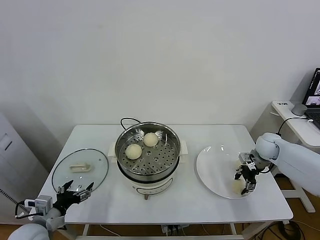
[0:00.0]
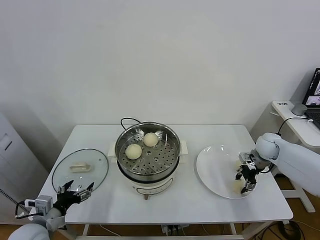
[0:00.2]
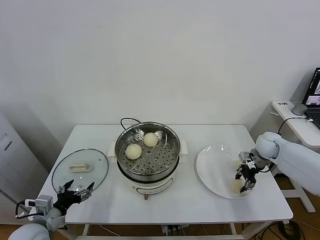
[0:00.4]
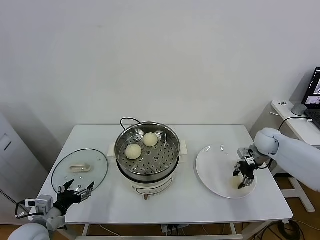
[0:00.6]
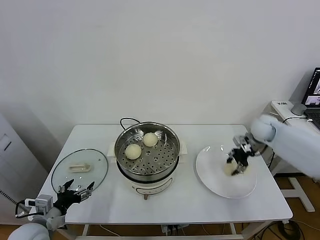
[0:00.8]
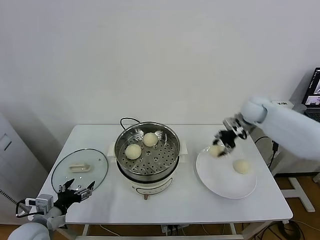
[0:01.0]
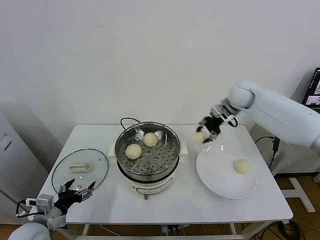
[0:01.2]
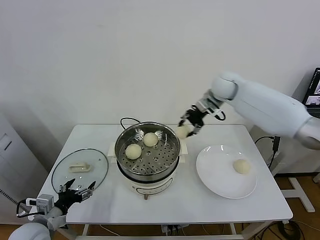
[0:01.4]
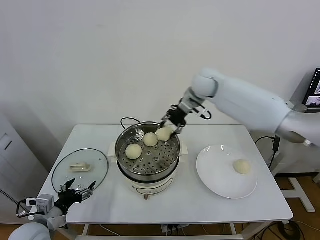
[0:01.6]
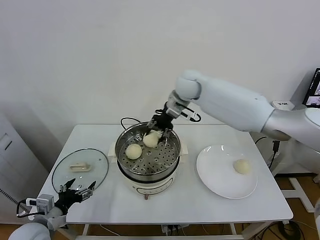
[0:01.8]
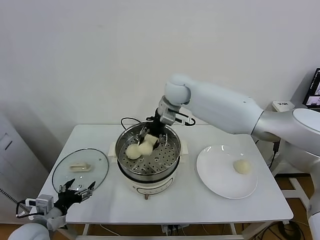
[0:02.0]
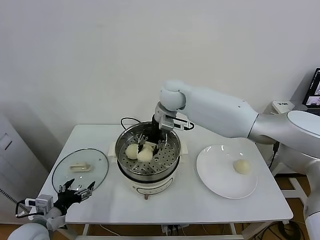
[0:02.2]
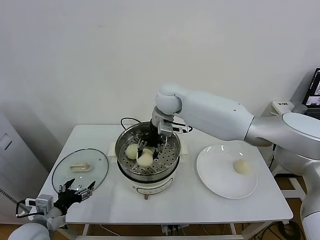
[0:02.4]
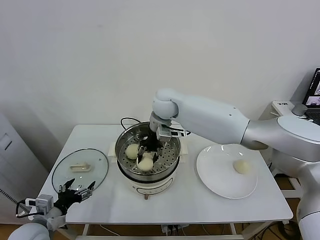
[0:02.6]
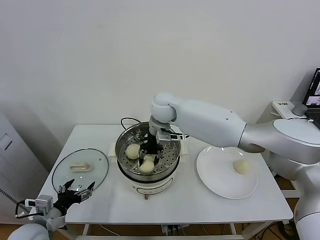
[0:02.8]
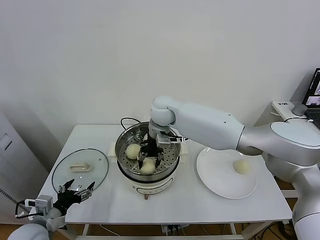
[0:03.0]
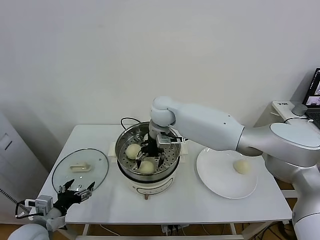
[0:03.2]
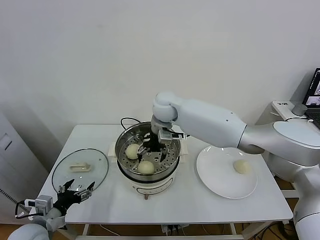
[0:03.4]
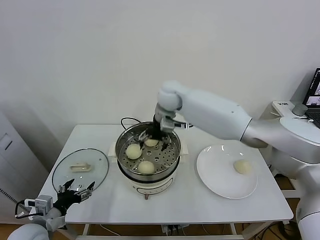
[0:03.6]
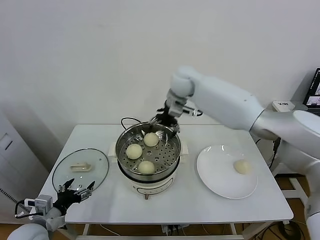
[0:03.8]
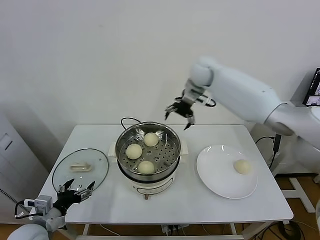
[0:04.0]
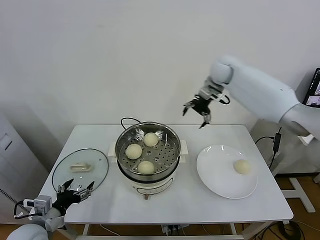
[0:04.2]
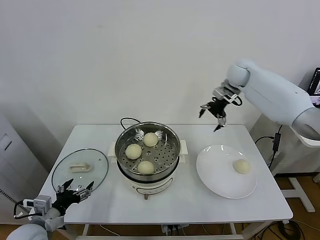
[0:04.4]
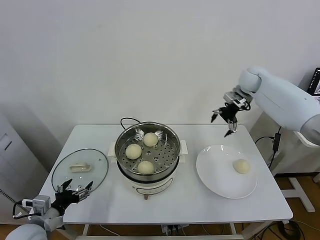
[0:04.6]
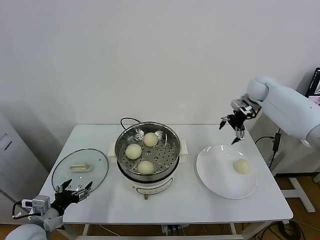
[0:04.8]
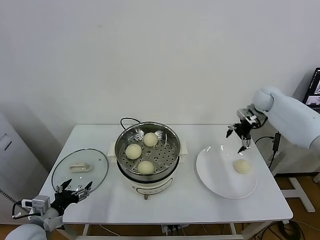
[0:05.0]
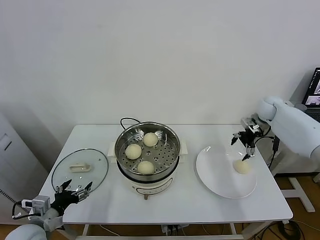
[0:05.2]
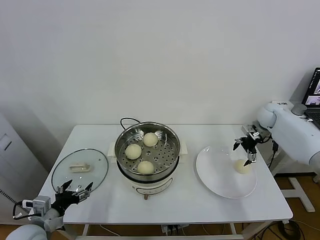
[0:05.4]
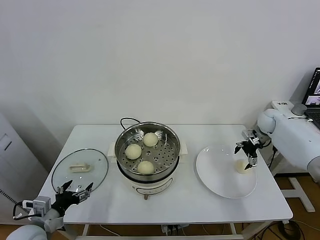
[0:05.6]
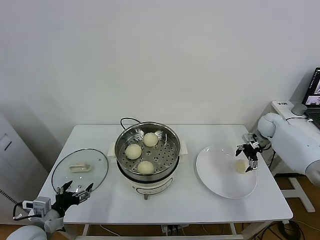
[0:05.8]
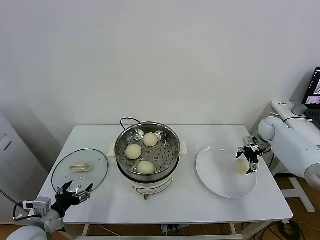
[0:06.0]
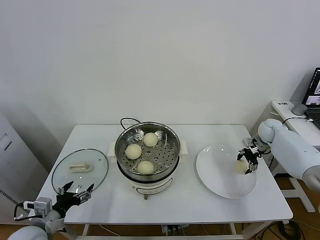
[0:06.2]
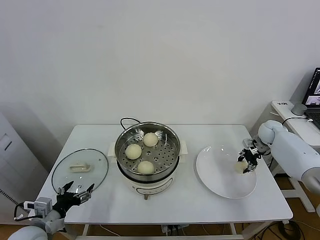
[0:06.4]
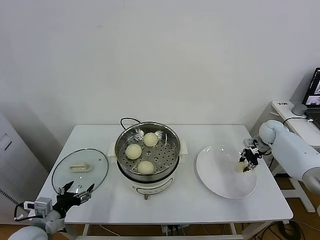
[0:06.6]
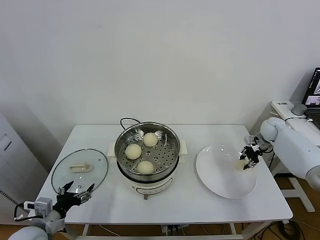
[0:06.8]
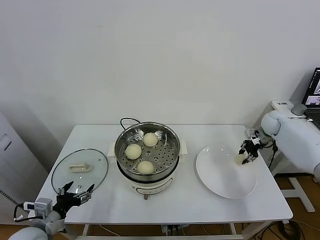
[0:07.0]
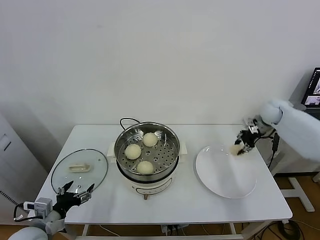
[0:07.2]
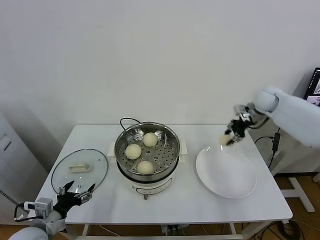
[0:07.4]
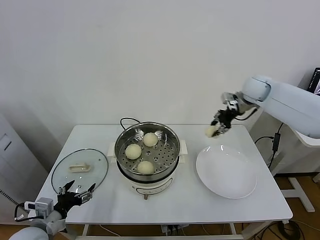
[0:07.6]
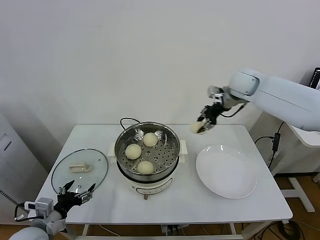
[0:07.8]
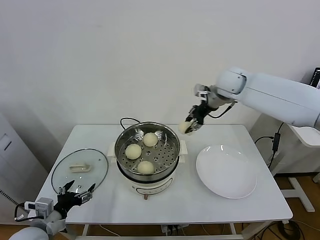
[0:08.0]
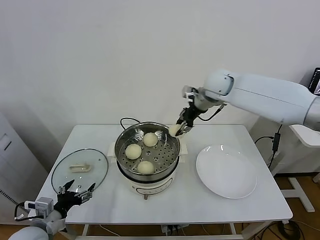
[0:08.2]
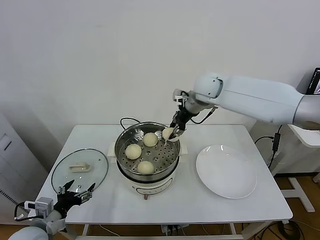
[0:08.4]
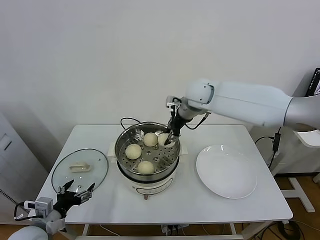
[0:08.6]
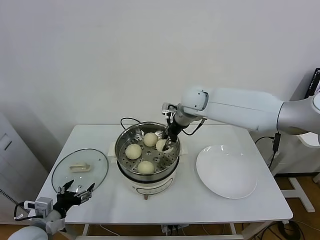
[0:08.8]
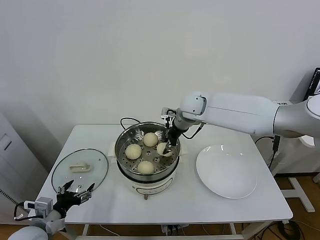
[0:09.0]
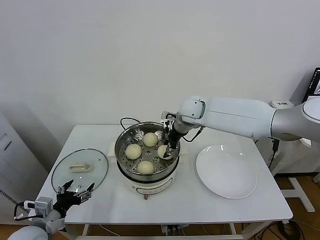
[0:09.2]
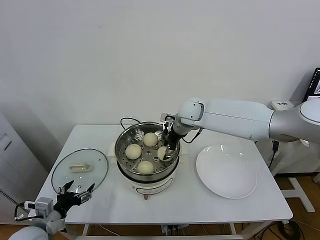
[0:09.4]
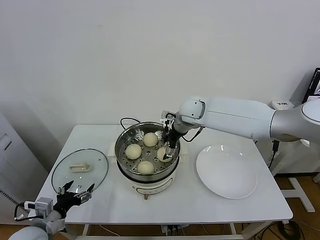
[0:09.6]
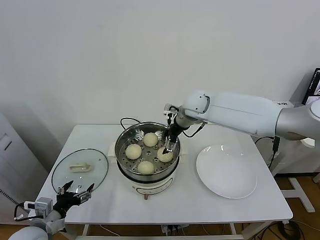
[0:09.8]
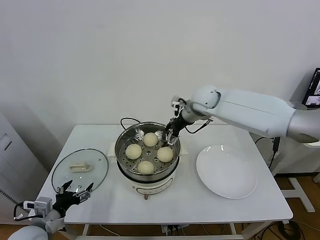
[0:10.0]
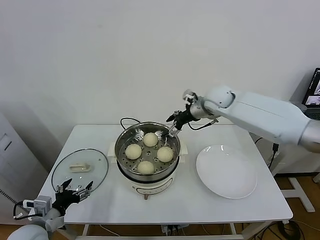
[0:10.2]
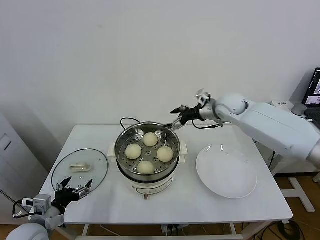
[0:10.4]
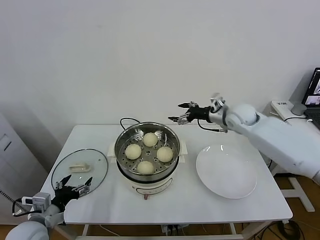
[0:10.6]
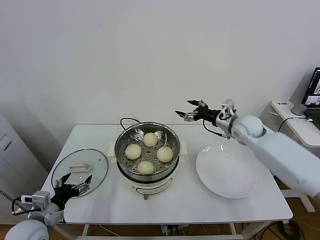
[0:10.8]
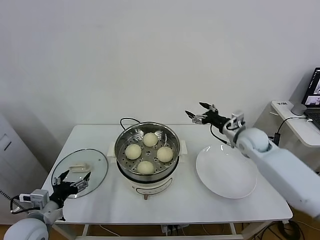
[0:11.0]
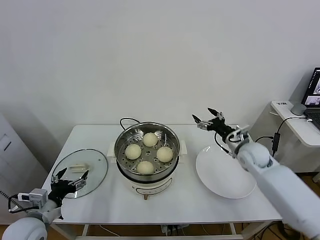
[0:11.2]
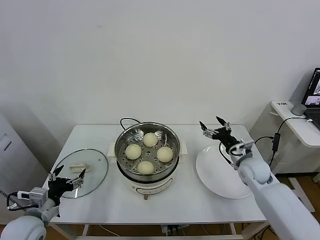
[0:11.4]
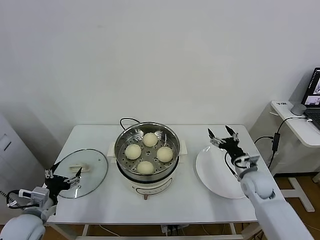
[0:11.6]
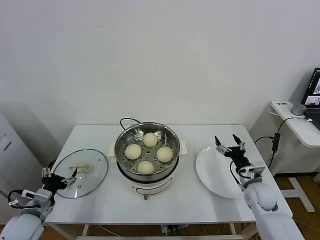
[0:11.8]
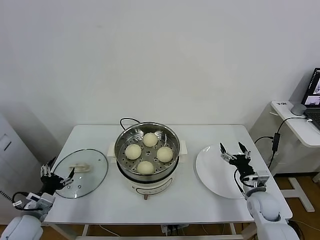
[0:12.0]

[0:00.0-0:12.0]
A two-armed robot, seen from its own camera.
Task of the whole recording: take steamed baozi put them in steamer.
Step, 0:00.4 to 0:03.6: Place the baozi on the steamer with right gripper.
Step, 0:03.8 to 0:06.4: Grasp the baozi in the plate with right gripper.
Step, 0:06.6 to 0:09.8: Place the baozi on the steamer with right gripper.
0:00.0 to 0:01.6: The right gripper is displaced to the left and upward by about 35 cm.
0:01.6 to 0:03.0: The right gripper travels to the left, downward and backward by about 15 cm.
0:03.0 to 0:04.4: The right gripper heads to the right, covering some 30 cm, and opens.
0:04.4 to 0:06.0: The right gripper travels downward and to the right by some 25 cm.
0:06.0 to 0:07.6: The right gripper travels upward and to the left by approximately 25 cm, and closes its fingers.
0:07.6 to 0:09.0: The right gripper travels to the left by approximately 20 cm.
0:09.0 to 0:10.4: The right gripper travels to the right by about 15 cm, and opens.
0:10.4 to 0:12.0: The right gripper heads downward, backward and to the right, covering about 35 cm. Meanwhile the left gripper goes roughly 5 cm to the left.

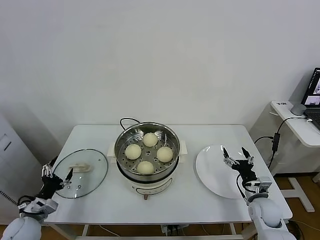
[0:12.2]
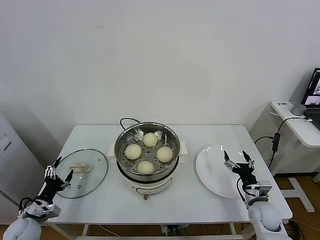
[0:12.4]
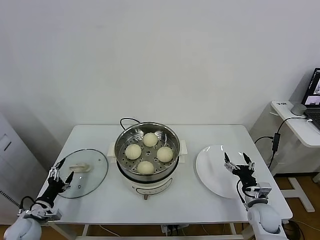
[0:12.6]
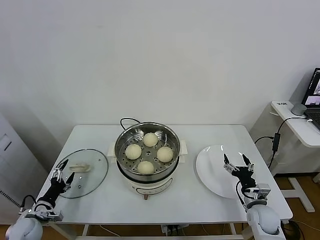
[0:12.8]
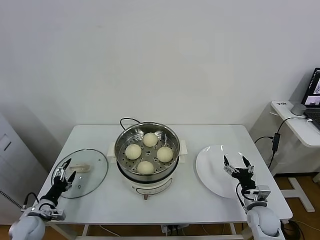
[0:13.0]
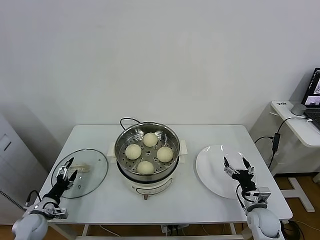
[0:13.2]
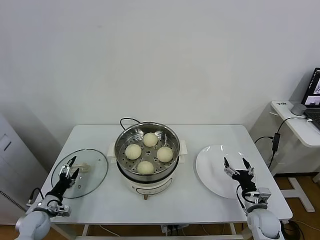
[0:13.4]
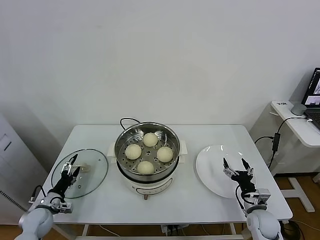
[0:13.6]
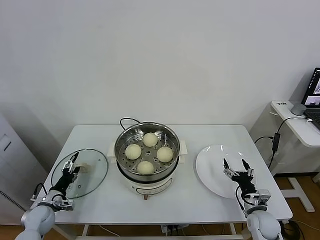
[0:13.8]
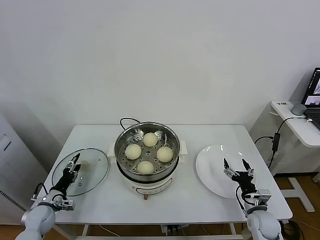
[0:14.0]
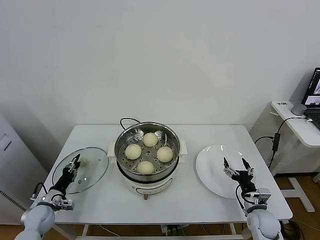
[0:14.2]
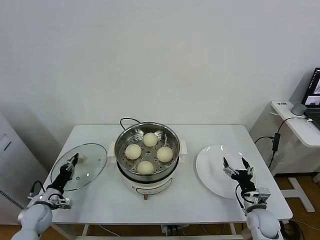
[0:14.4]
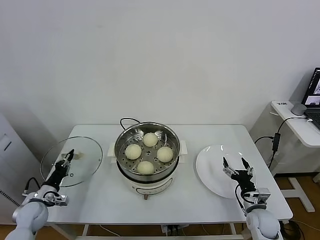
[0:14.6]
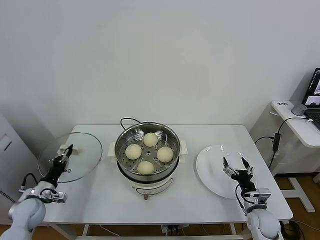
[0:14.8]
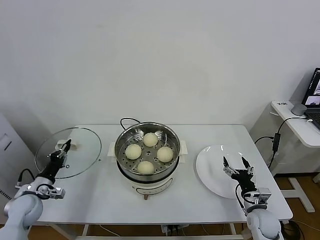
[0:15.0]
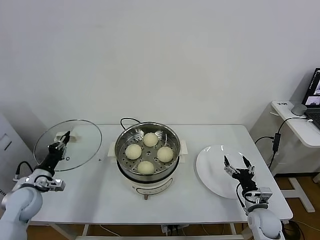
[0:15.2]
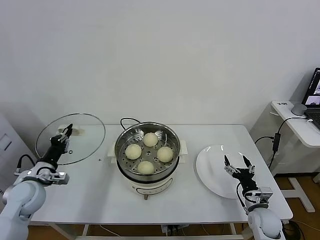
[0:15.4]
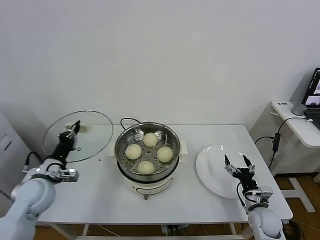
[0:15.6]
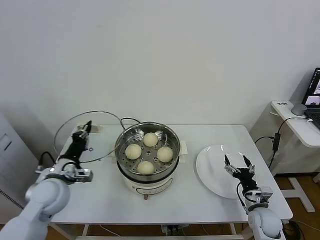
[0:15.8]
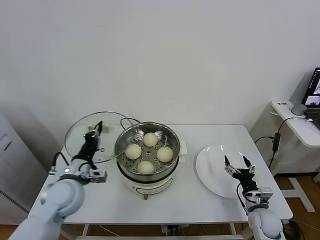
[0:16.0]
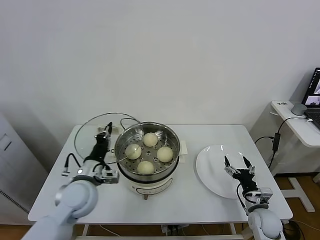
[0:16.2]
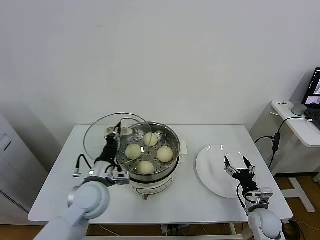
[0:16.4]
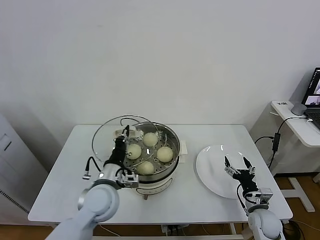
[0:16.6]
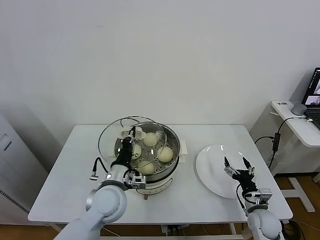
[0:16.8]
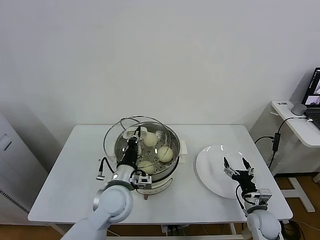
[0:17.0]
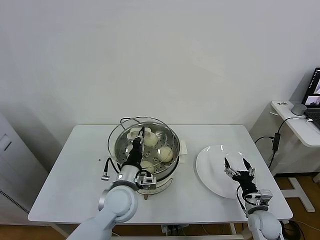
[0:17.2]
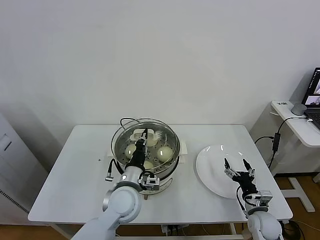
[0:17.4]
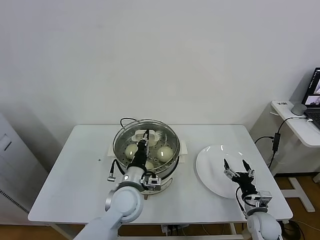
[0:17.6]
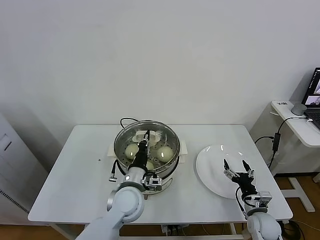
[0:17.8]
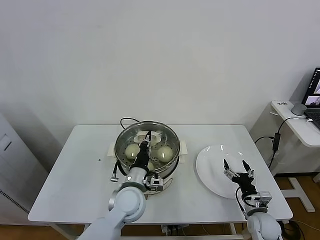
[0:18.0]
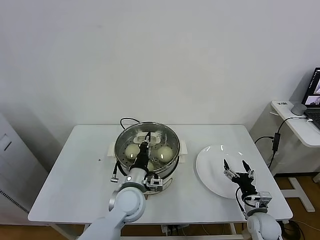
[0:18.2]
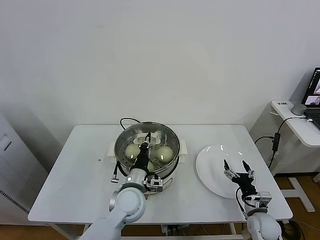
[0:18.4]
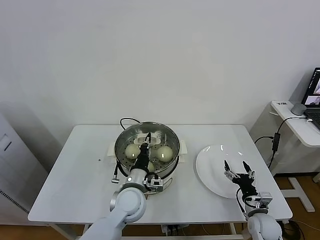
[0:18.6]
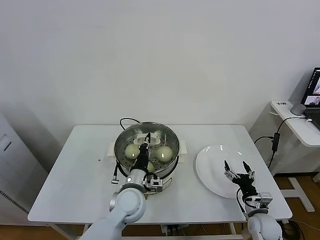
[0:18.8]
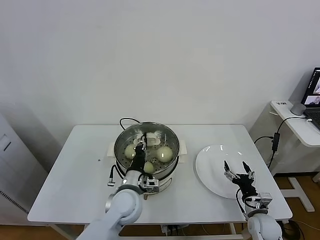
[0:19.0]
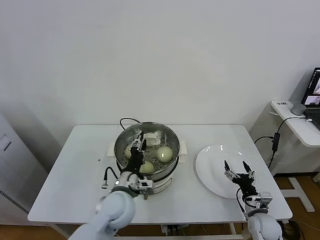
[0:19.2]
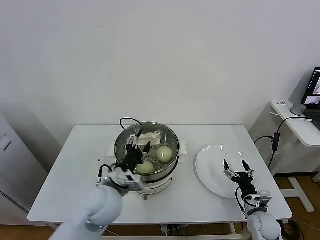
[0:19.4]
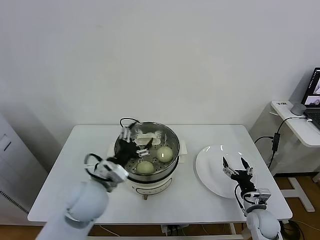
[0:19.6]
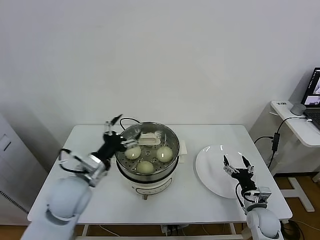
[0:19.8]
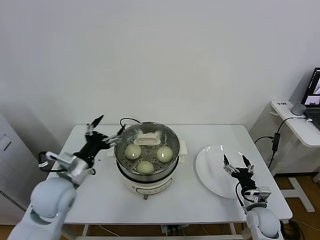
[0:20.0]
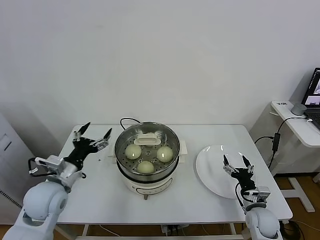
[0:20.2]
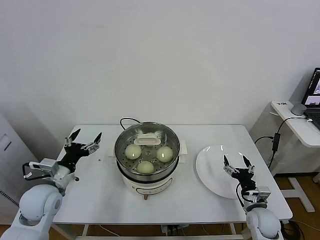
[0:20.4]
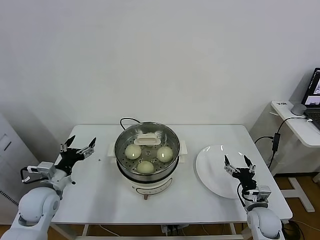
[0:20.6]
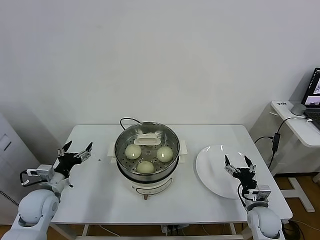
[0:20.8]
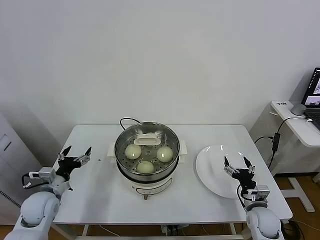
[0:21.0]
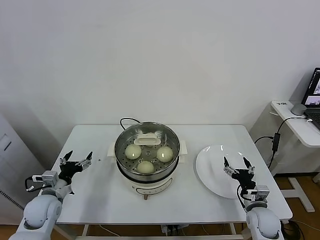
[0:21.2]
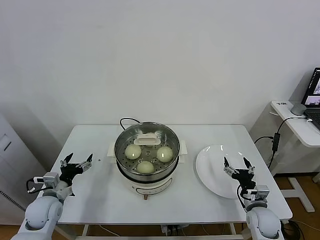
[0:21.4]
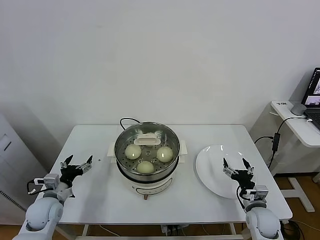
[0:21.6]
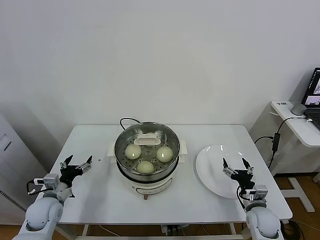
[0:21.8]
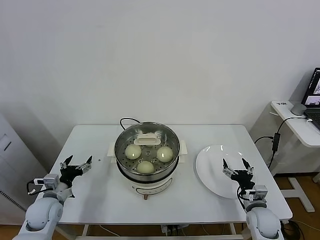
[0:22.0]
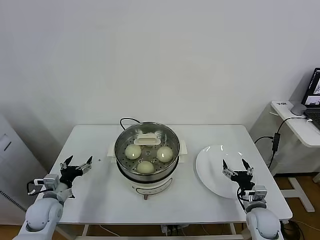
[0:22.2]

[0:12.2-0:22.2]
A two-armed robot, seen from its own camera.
Task of the whole recording: take steamed baozi put them in steamer.
Step, 0:12.2 to 0:14.6: Grasp the pot lid with left gripper.
Step, 0:14.8 to 0:19.4: Place the pot lid on the steamer with left gripper.
0:12.2 to 0:13.6: The left gripper goes approximately 10 cm downward and forward.
0:13.6 to 0:15.0: The left gripper is displaced upward by some 10 cm, and closes its fingers.
0:15.0 to 0:16.4: The left gripper is displaced to the right and upward by approximately 25 cm.
0:16.4 to 0:18.0: The left gripper travels to the right by approximately 10 cm.
0:18.0 to 0:19.4: The left gripper moves to the left, some 5 cm, and opens up.
0:19.4 to 0:20.8: The left gripper travels to the left by about 20 cm.
0:20.8 to 0:22.2: The left gripper shifts some 5 cm downward.
